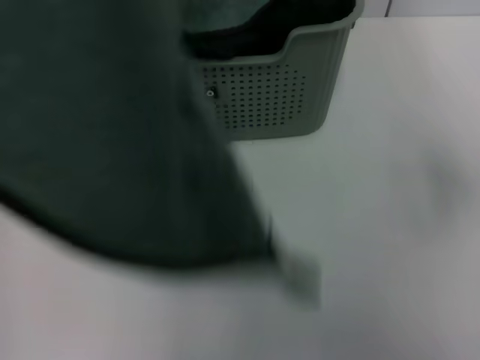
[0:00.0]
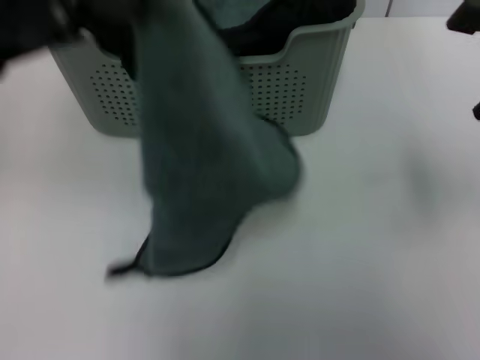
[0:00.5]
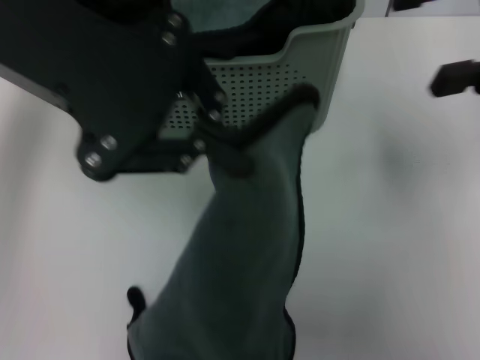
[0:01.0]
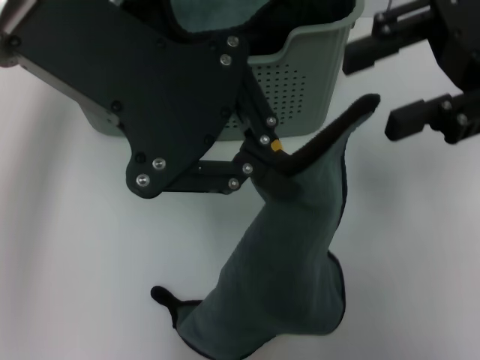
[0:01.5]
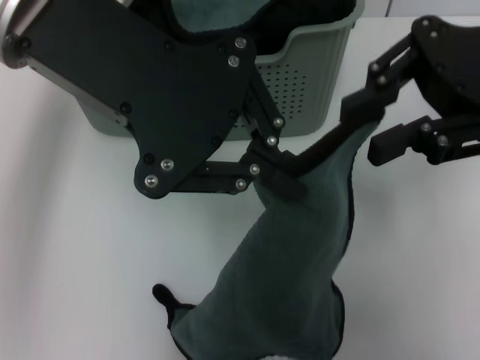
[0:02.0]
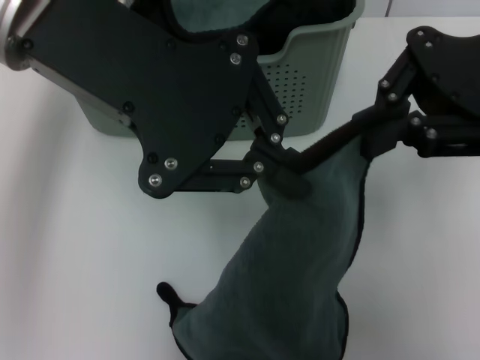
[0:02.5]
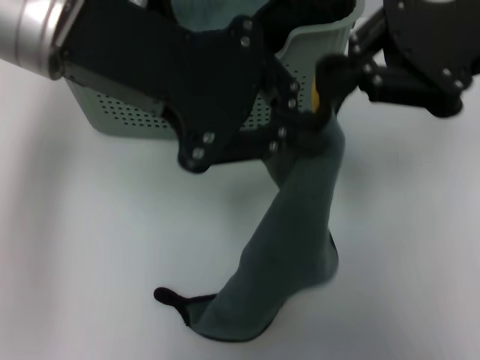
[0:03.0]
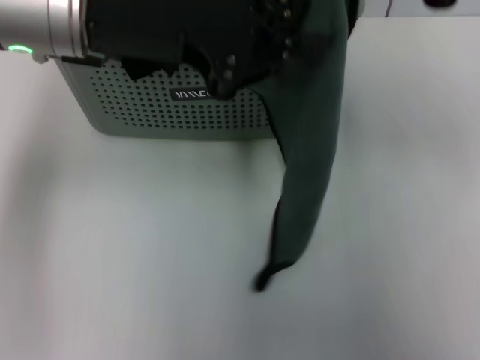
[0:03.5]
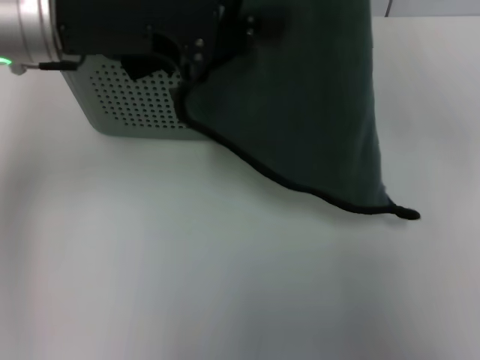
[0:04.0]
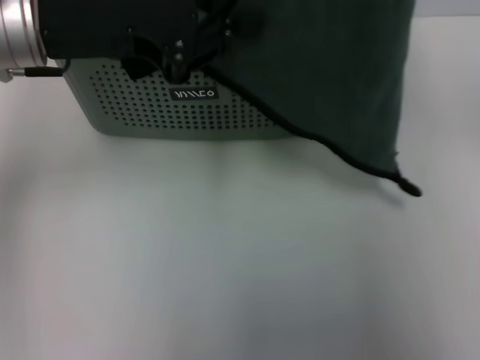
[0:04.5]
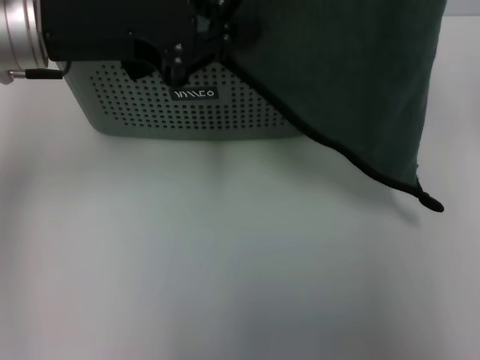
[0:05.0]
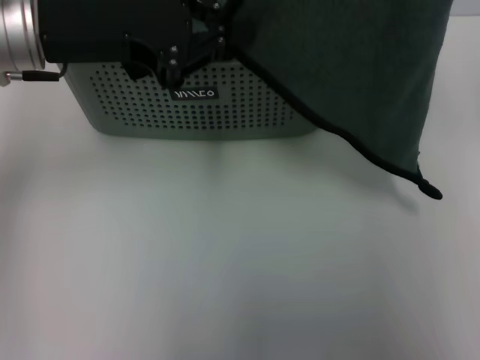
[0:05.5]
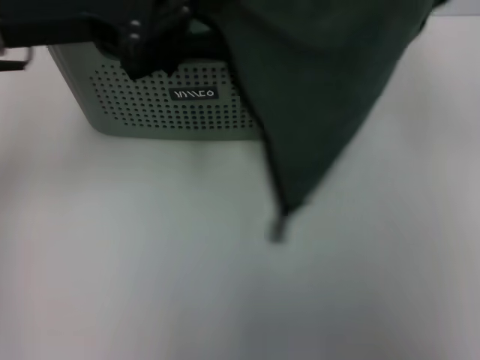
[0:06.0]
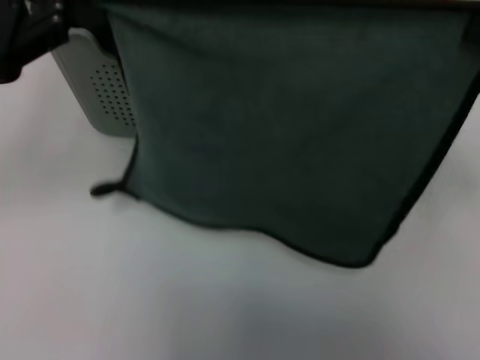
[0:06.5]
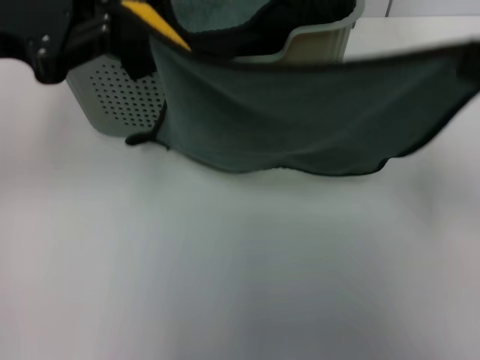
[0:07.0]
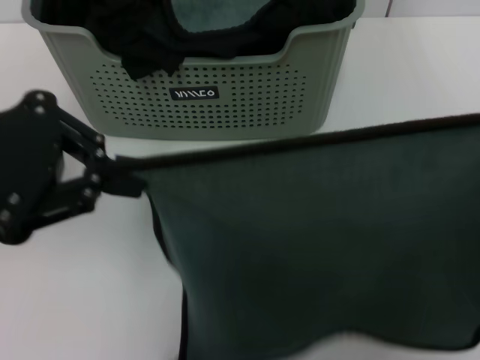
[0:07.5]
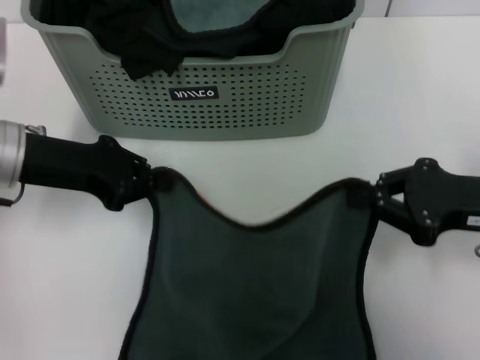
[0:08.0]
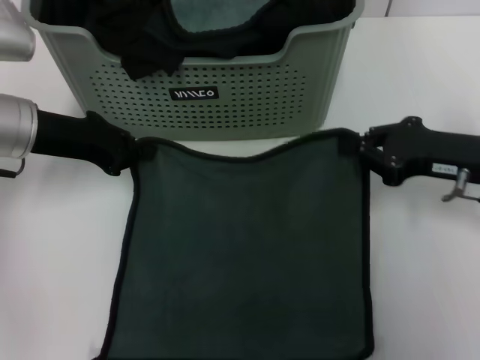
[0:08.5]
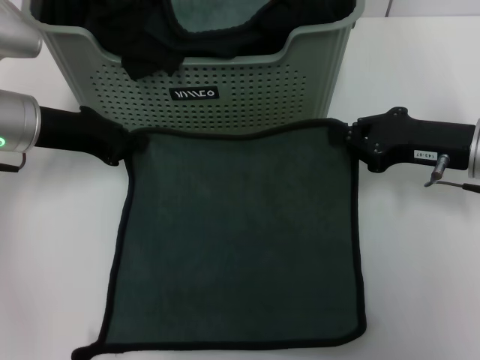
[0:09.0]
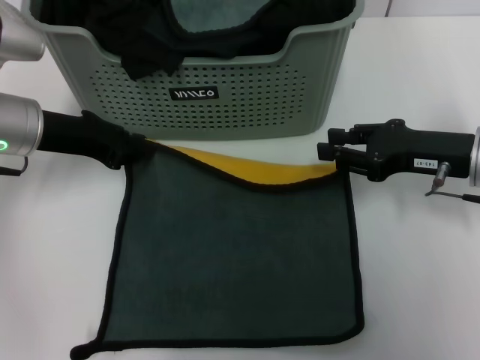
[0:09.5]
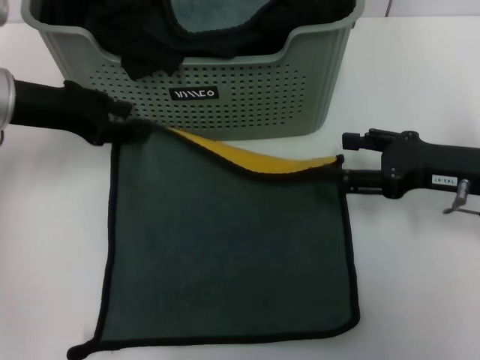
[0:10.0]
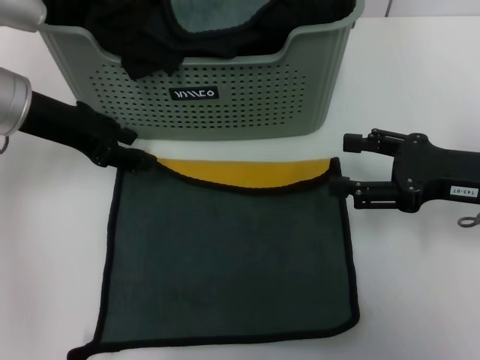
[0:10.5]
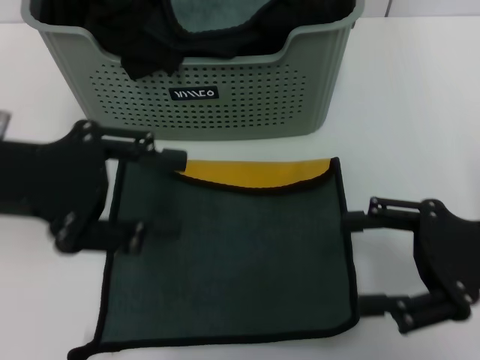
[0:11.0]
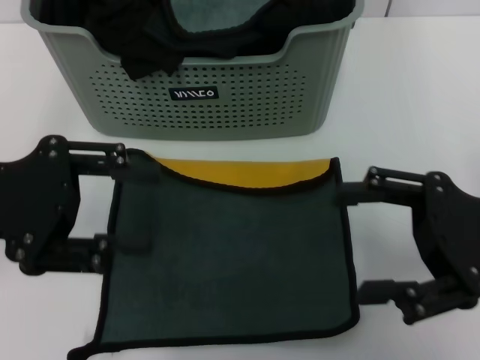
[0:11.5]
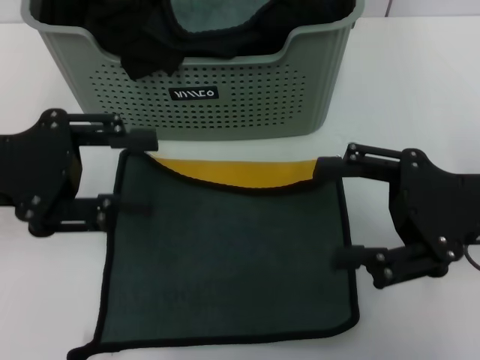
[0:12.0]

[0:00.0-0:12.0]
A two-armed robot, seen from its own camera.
Task of the whole recording: pick up the towel from the storage box and lay it flat on the table.
Step, 0:00.0 to 0:02.5: Spread the towel flat with the left gripper.
Step, 0:03.0 to 0:10.5: Spread the towel flat with the right gripper.
0:00.0 to 0:02.0: The left gripper moves to the right, approximately 15 cm. The right gripper goes some 15 cm to the left, upward and forward, and closes its fingers.
0:02.0 to 0:04.0: The left gripper travels downward by some 5 cm, while the right gripper is displaced upward by some 10 cm, and closes up.
0:04.0 to 0:06.0: The right gripper goes some 5 cm to the right.
0:06.0 to 0:08.0: The left gripper goes about 10 cm downward, while the right gripper travels downward by roughly 20 cm.
0:08.0 to 0:10.0: The left gripper opens up; the right gripper opens its fingers.
0:10.0 to 0:12.0: The right gripper shifts by some 5 cm. The left gripper heads backward, covering about 10 cm.
